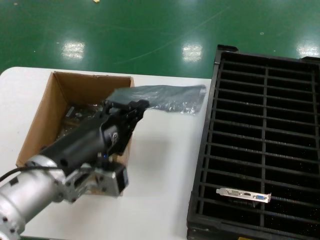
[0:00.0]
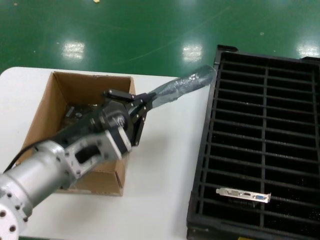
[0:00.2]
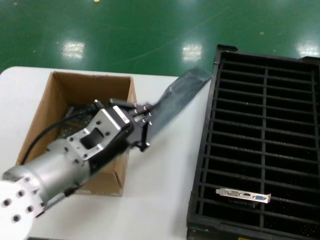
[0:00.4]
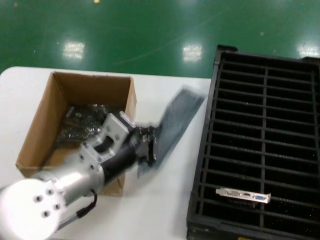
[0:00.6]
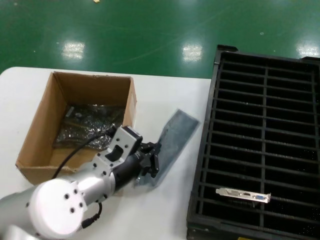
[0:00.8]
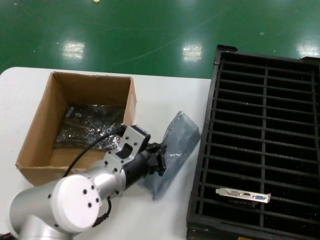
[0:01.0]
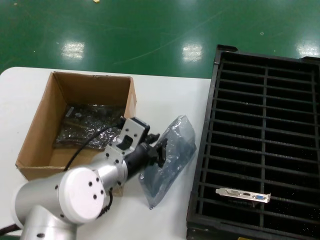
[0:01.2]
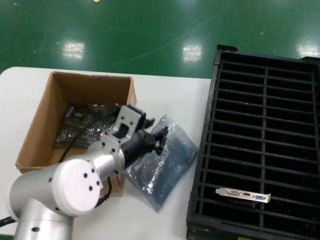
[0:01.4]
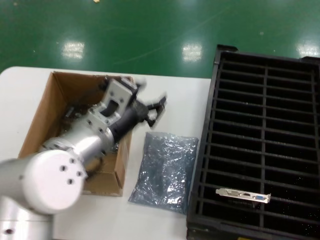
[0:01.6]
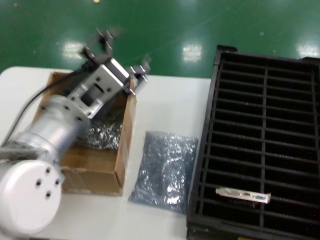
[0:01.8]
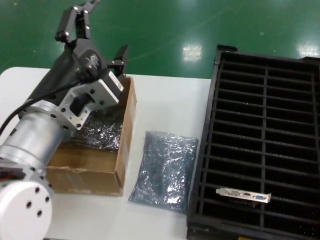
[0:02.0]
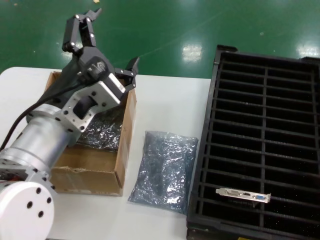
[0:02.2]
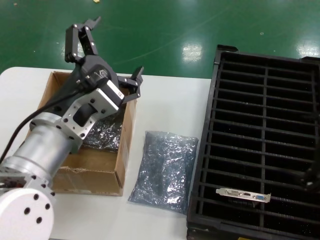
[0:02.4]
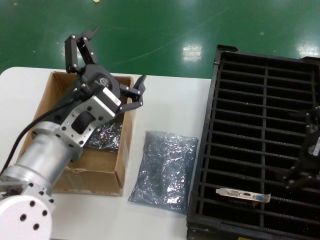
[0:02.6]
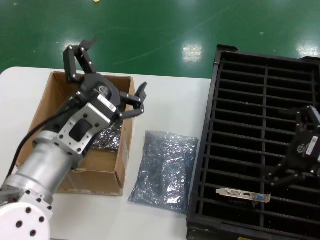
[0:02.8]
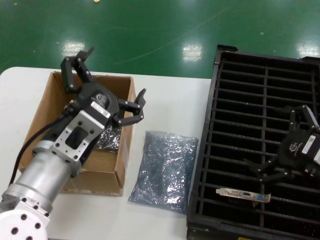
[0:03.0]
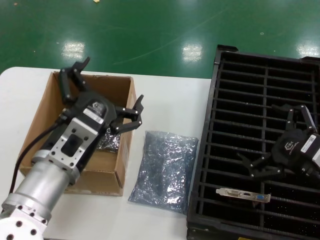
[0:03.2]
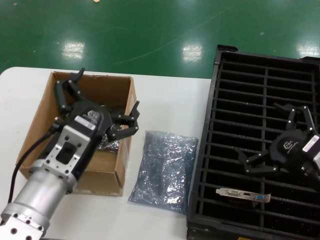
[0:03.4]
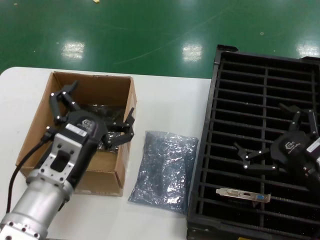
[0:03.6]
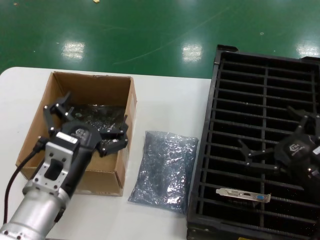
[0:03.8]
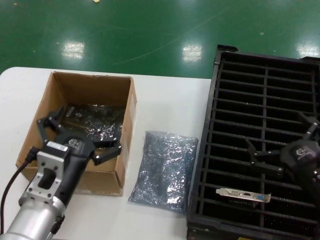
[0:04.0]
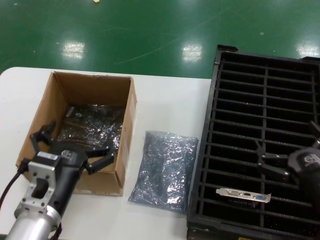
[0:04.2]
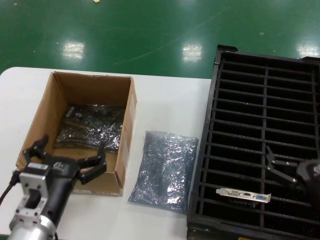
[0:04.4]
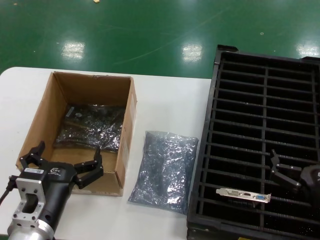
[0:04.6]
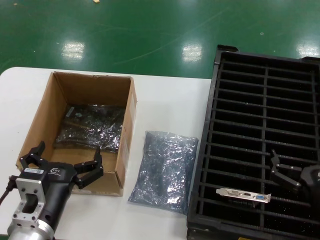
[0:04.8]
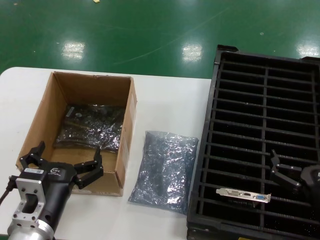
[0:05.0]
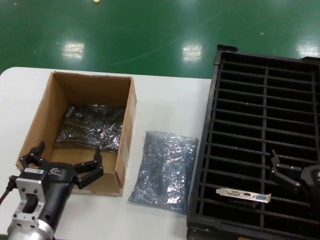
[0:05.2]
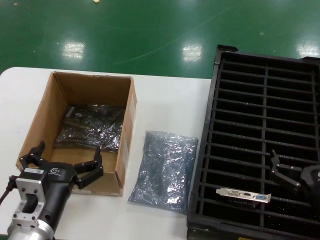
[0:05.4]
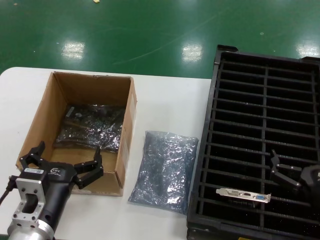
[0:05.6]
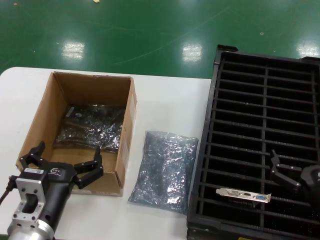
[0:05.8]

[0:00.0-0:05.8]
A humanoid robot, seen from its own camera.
Task of the whole recording: take out graphics card from box remove packaging put into black container.
Step, 0:00.0 to 0:01.6: Place the down the bag.
0:00.0 to 0:01.4: The left hand travels forward and to the right by approximately 15 cm.
0:01.4 to 0:02.8: The right hand goes some 5 cm downward. Meanwhile the left hand goes approximately 10 cm backward.
0:02.8 to 0:04.4: Both hands travel together downward, approximately 15 cm.
0:04.4 to 0:05.8: The two hands keep their place.
